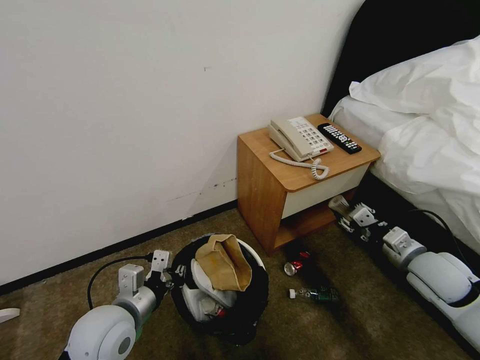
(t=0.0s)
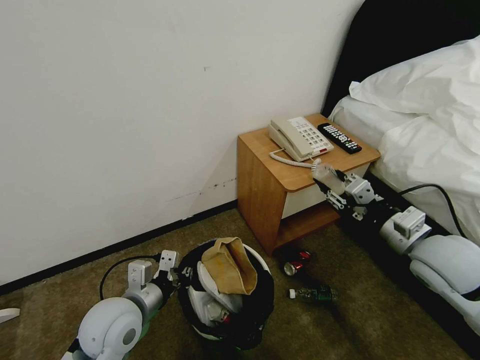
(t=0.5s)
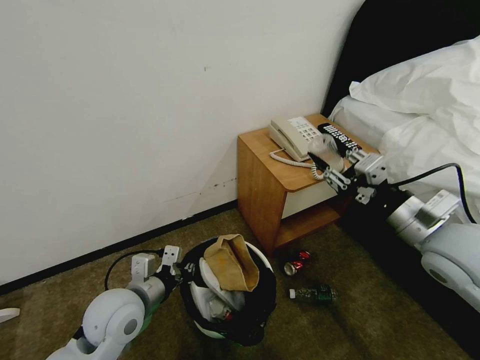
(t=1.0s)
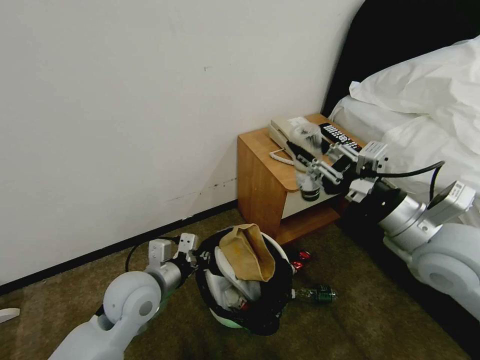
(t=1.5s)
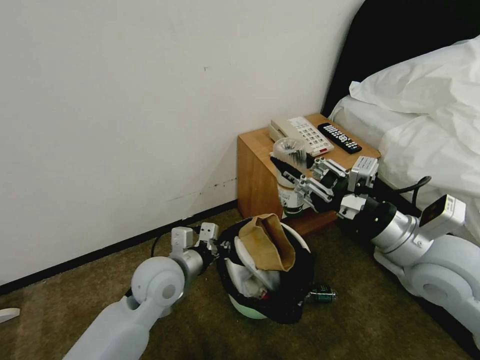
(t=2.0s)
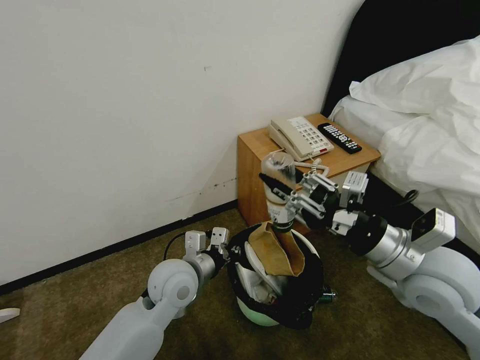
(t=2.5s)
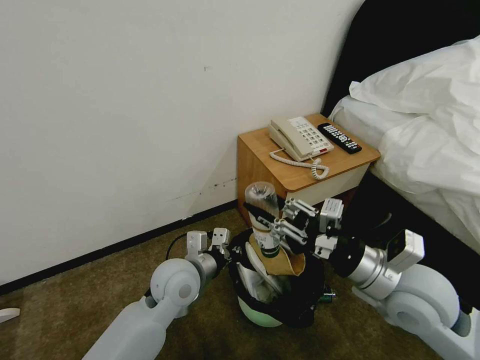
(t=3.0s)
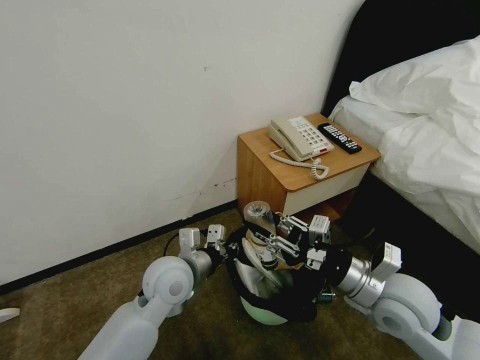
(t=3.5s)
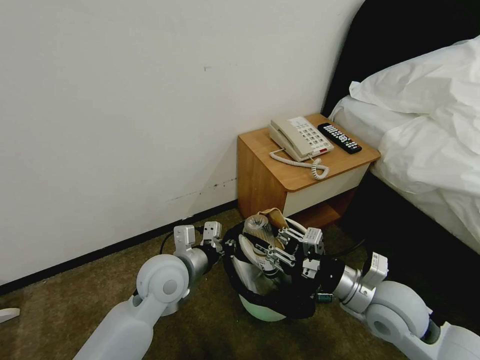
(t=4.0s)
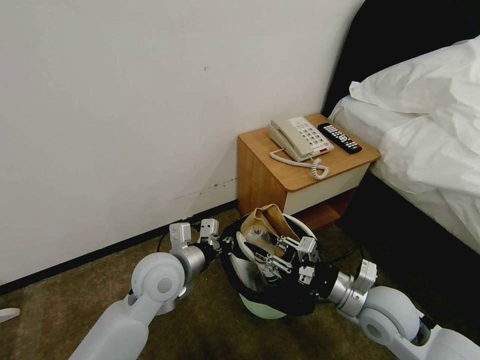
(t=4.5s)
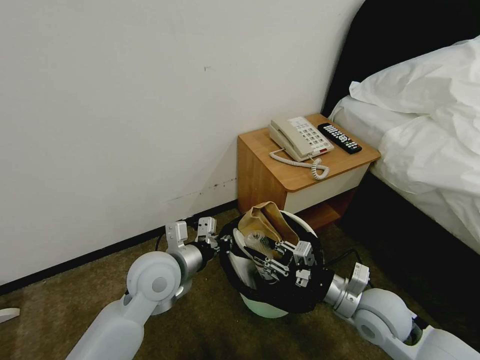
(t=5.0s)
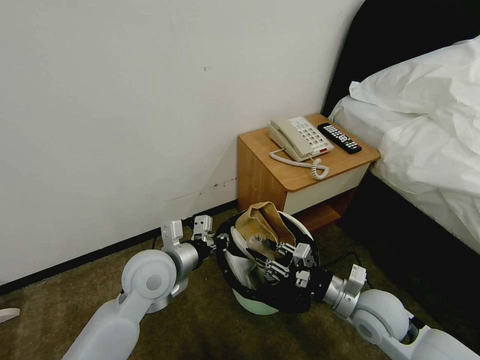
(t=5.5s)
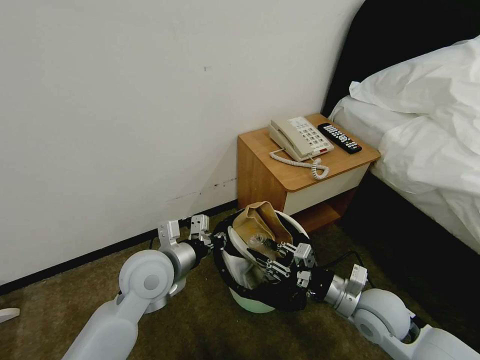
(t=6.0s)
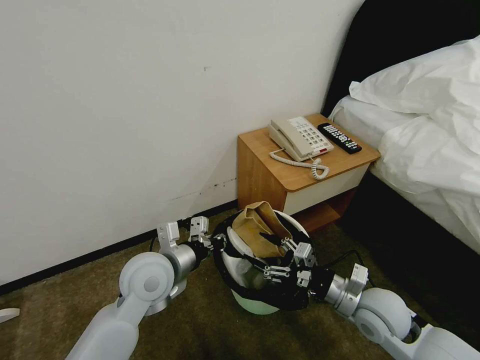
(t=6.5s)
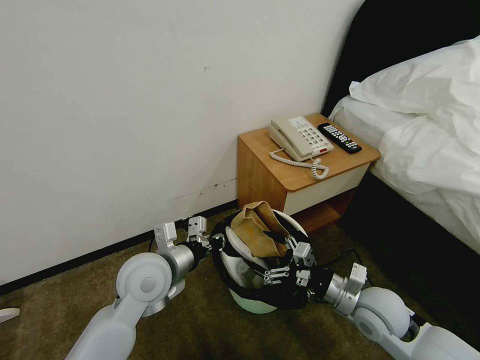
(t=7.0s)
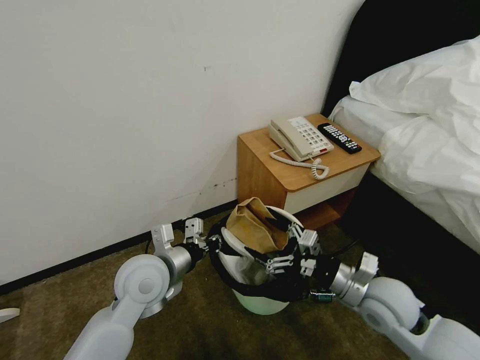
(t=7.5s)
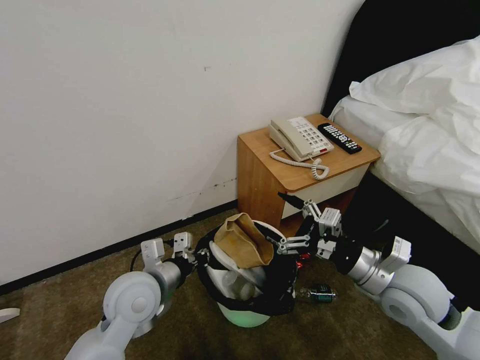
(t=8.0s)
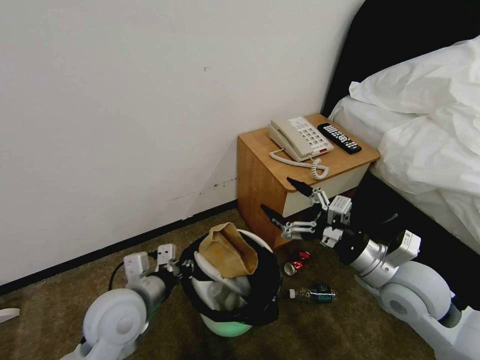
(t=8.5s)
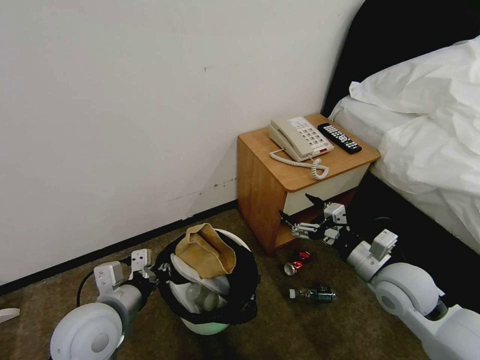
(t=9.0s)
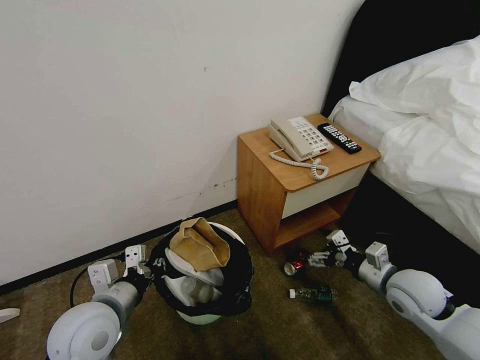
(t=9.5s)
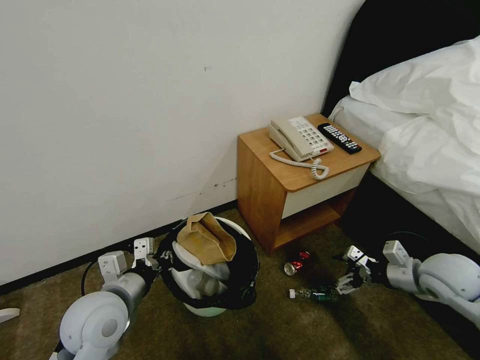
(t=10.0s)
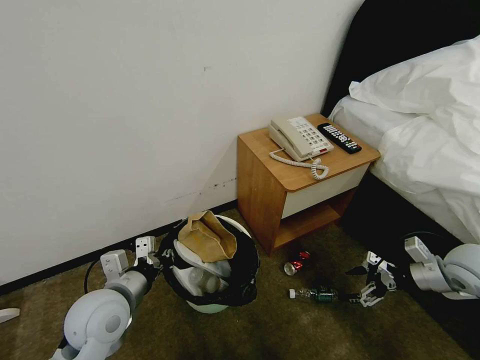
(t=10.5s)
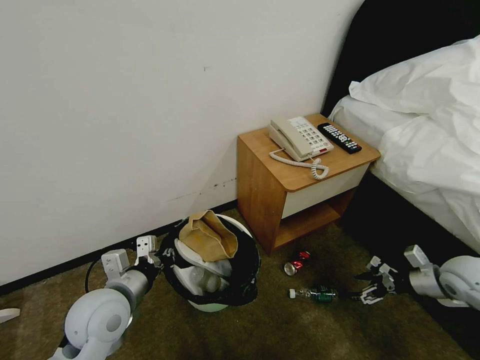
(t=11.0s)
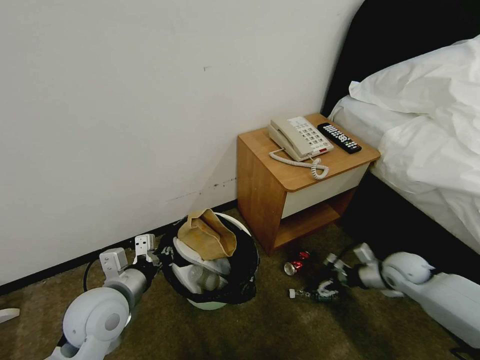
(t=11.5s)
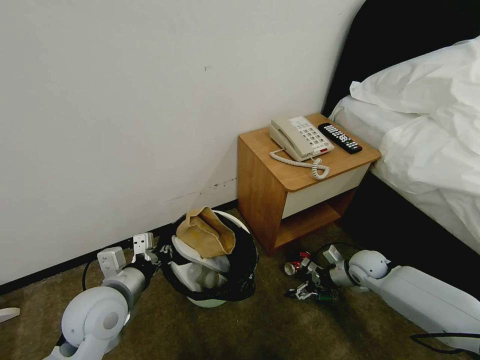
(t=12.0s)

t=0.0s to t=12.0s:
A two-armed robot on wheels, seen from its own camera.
Task of the whole recording: Pick up the trash bin, then pick up the garbage from the floor and place it into the trash bin.
t=0.0s to t=2.0s: The right gripper is displaced upward and to the left by some 15 cm. Meanwhile the left gripper goes some 10 cm forward and to the right.
t=2.0s to t=4.0s: The right gripper heads downward, covering roughly 15 cm.
t=4.0s to t=6.0s: The right gripper travels downward by some 5 cm.
t=6.0s to t=8.0s: The right gripper shifts about 10 cm upward, and opens.
t=8.0s to t=10.0s: The right gripper moves to the right, approximately 15 cm, while the left gripper ends up roughly 5 cm from where it was.
t=10.0s to t=12.0s: The right gripper heads downward, forward and to the left, covering approximately 20 cm.

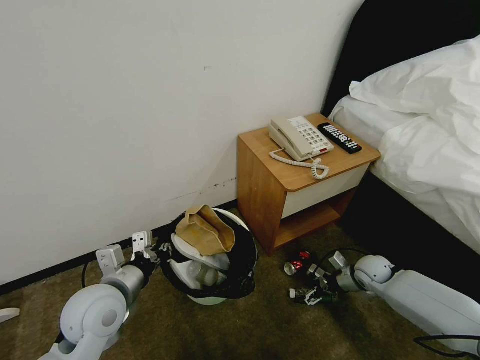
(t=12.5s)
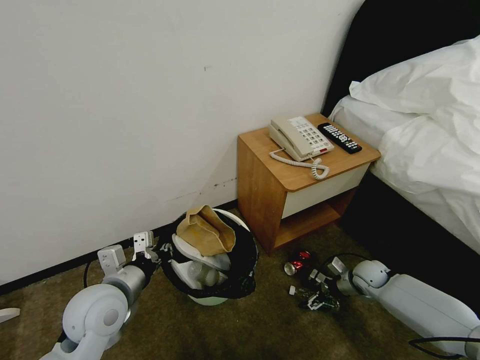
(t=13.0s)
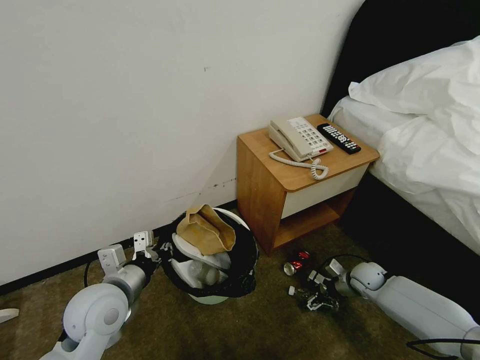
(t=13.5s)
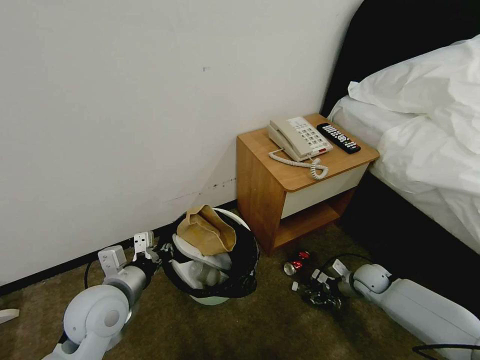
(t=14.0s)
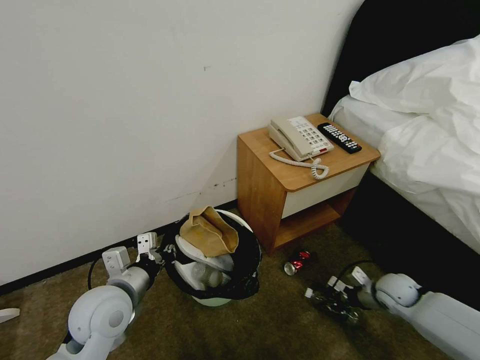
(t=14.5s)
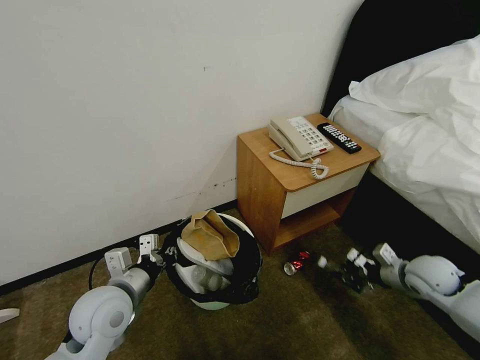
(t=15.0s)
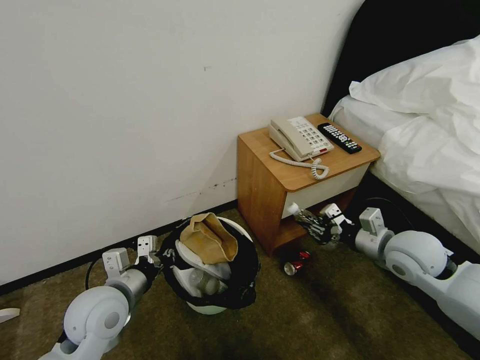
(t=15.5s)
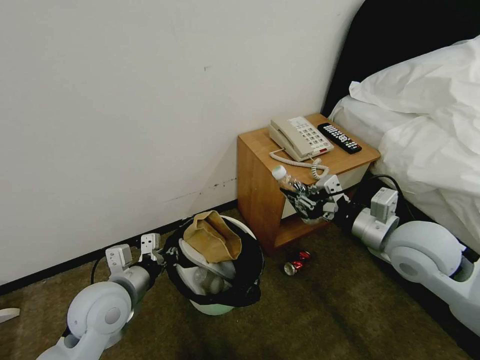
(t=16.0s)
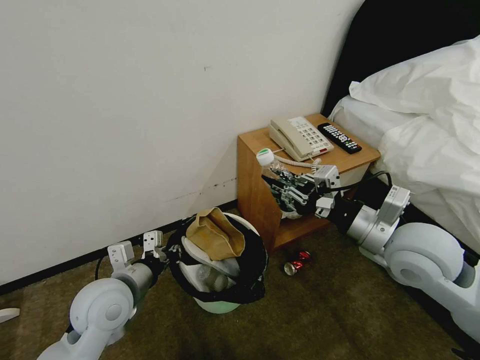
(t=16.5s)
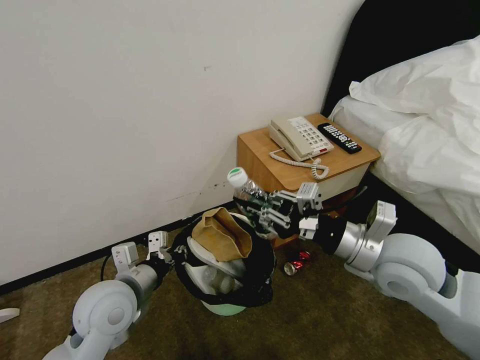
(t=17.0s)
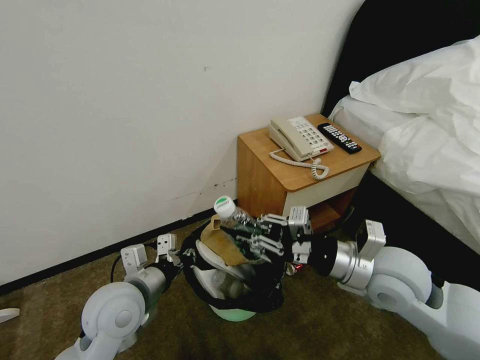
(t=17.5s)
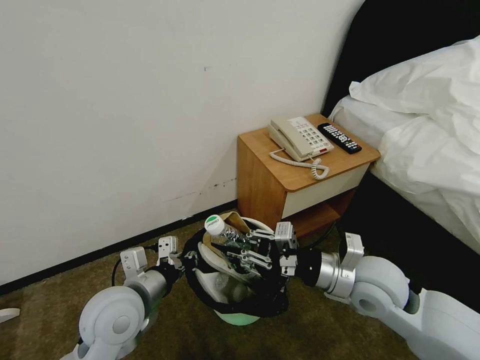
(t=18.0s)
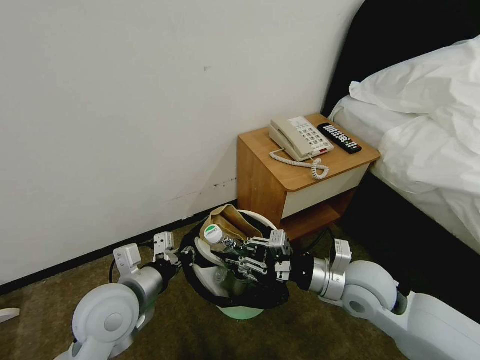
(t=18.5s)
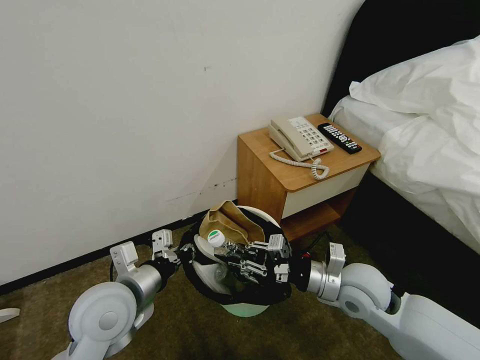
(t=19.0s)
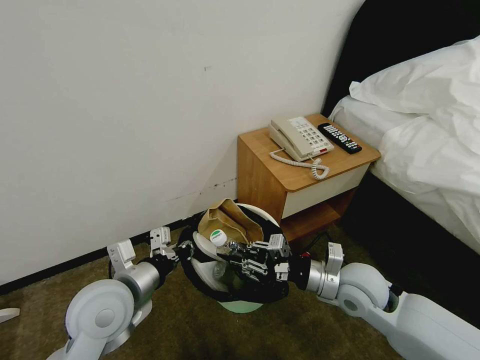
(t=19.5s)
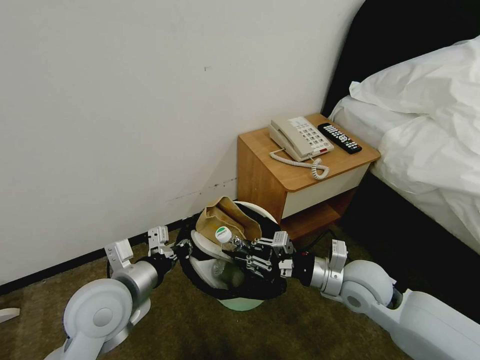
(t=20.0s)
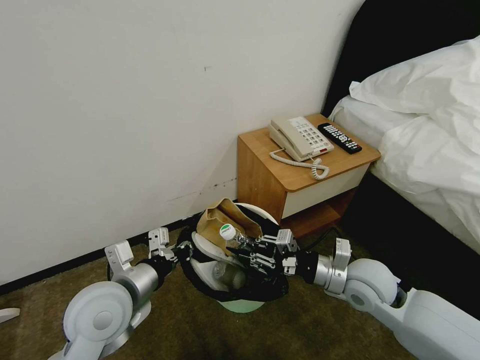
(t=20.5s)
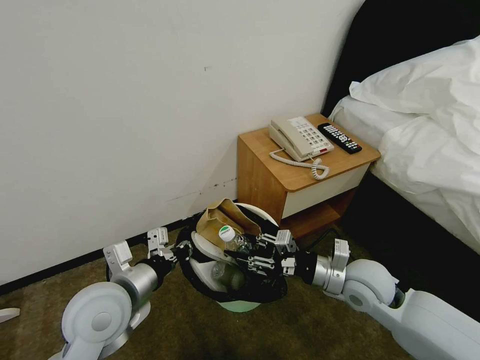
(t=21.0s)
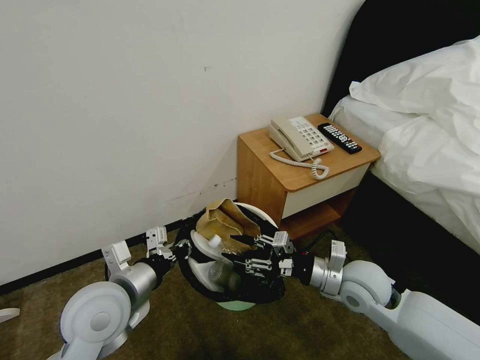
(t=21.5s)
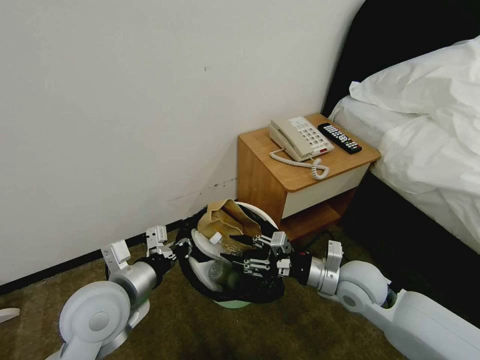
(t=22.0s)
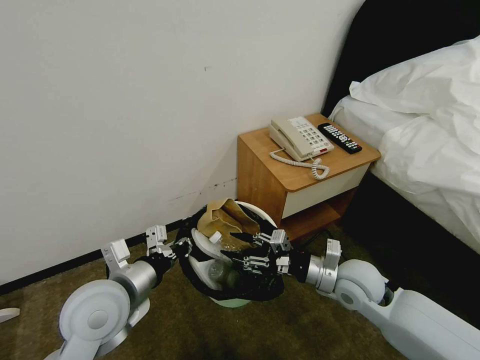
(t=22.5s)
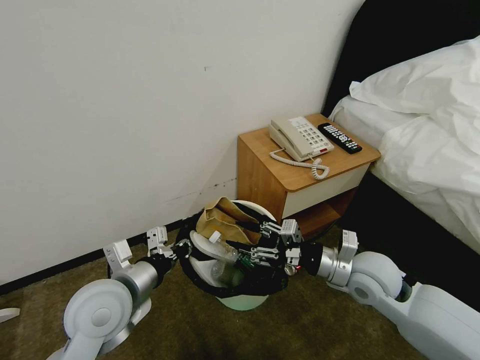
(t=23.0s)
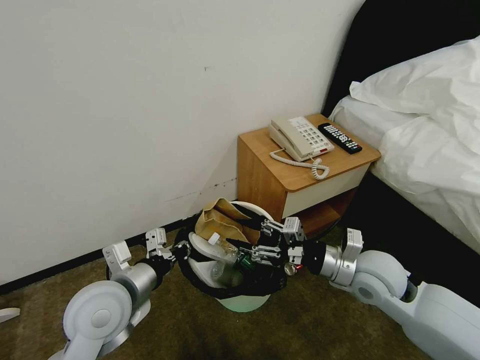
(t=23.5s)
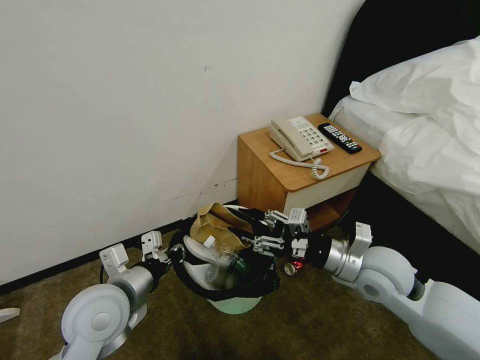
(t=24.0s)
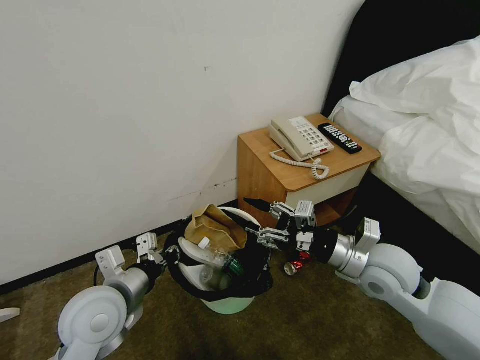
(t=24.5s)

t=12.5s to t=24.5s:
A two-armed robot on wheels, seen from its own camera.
Task of the whole recording: Pick up the trash bin, then pick up the garbage from the floor and place it into the trash bin.
t=12.5s to t=14.5s: The right gripper heads backward, covering some 5 cm, and closes its fingers.
t=14.5s to t=16.5s: The right gripper is displaced upward and to the left by some 30 cm.
t=16.5s to t=18.5s: The right gripper heads downward and to the left, covering about 10 cm.
t=18.5s to t=22.5s: The grippers stay close to where they were, moving slightly.
t=22.5s to t=24.5s: The right gripper moves upward, roughly 10 cm.

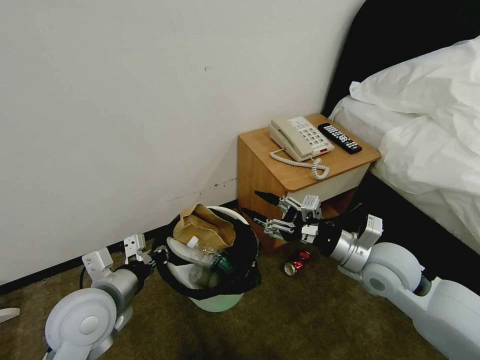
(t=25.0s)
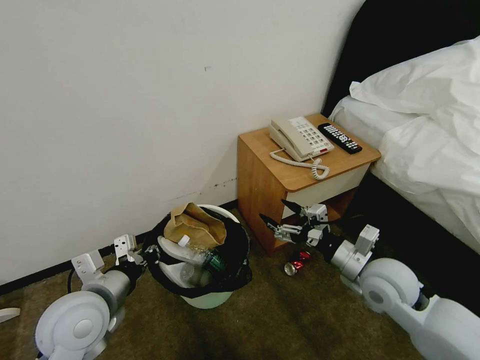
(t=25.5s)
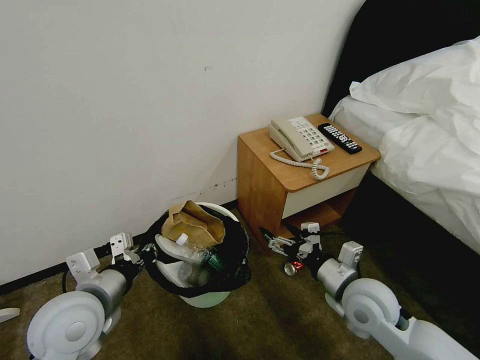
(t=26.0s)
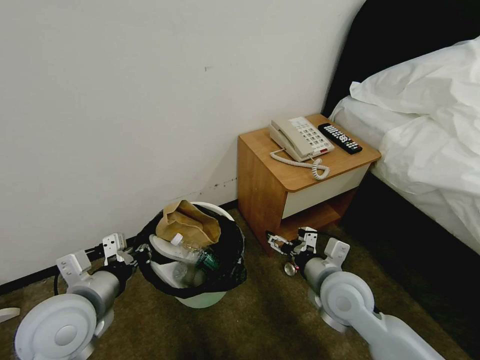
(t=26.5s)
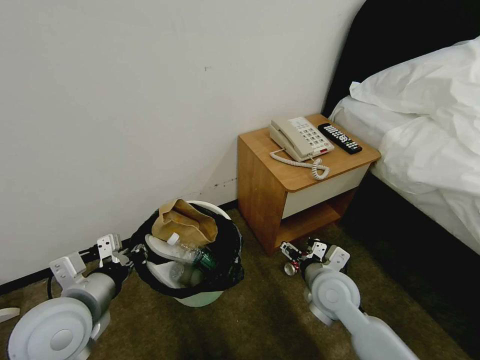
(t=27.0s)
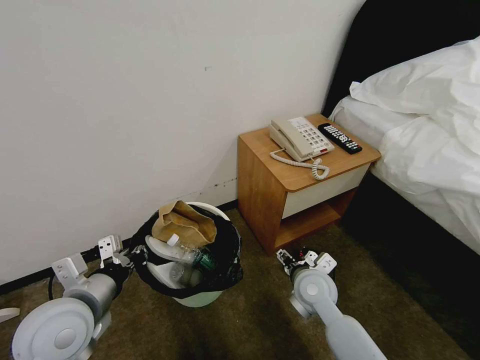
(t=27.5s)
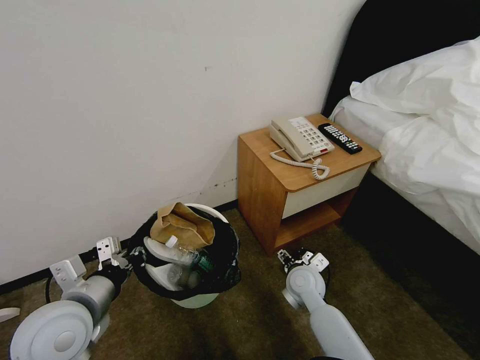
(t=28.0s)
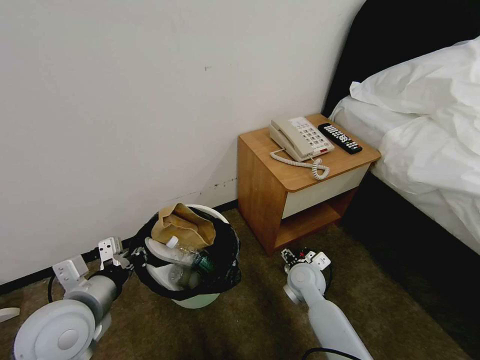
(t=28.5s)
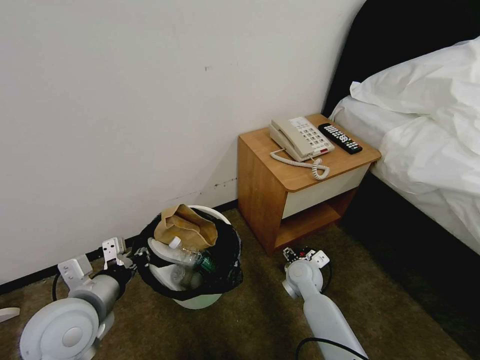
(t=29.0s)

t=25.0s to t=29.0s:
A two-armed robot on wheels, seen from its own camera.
Task of the whole recording: Pick up the trash bin, then pick up the garbage from the floor and place it into the trash bin.
t=25.0s to t=27.0s: The right gripper goes about 10 cm downward and to the left, and opens up.
t=27.0s to t=29.0s: The right gripper heads downward and forward, covering about 15 cm.
